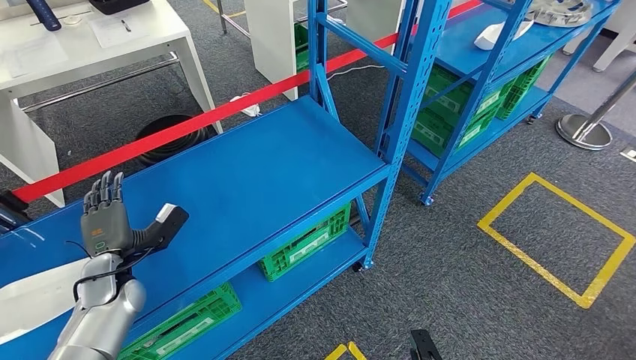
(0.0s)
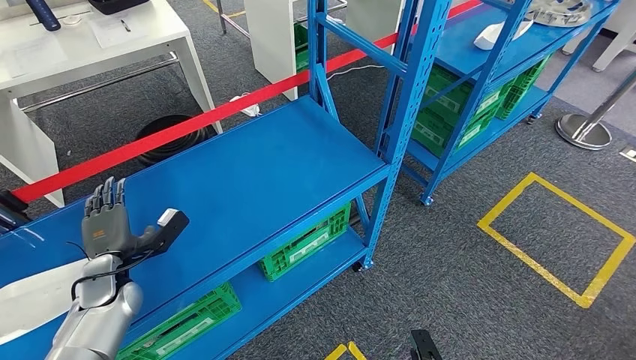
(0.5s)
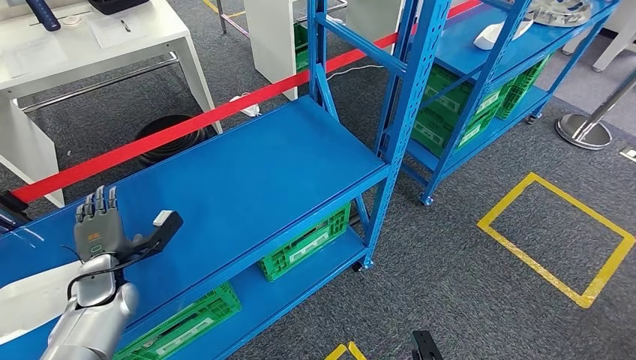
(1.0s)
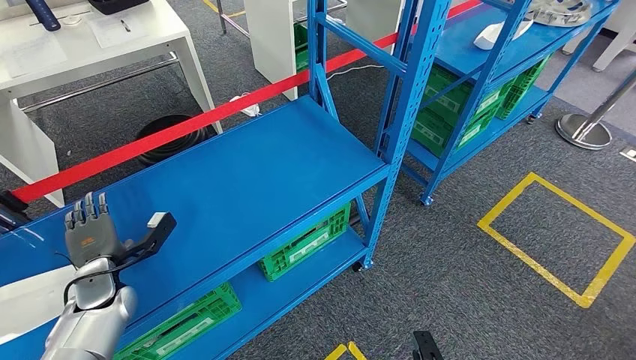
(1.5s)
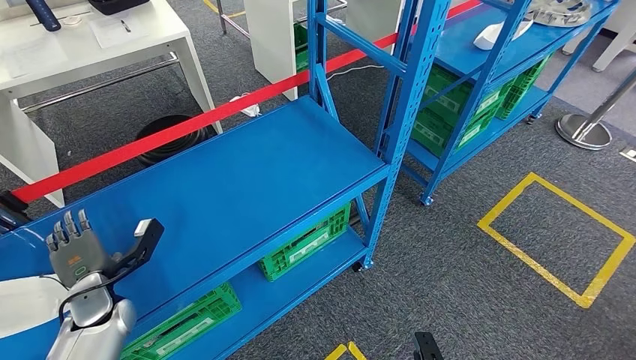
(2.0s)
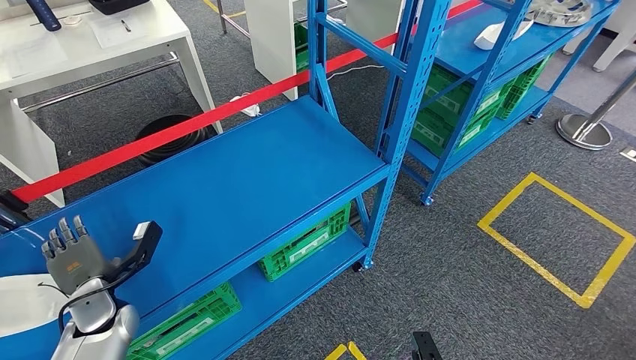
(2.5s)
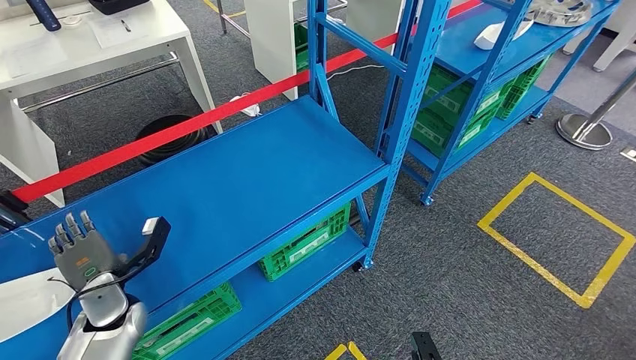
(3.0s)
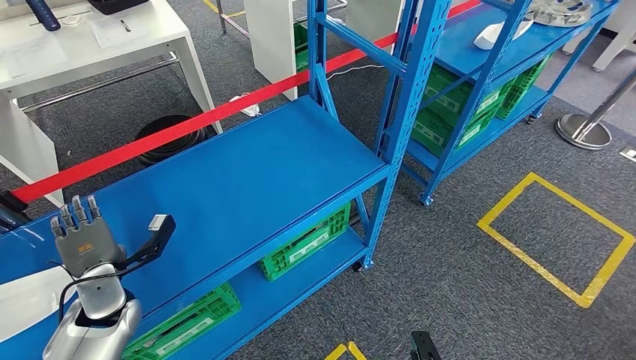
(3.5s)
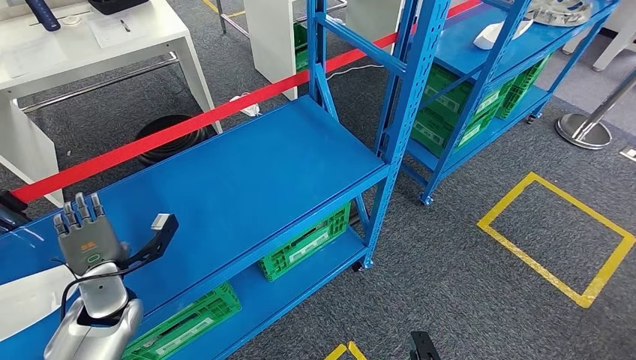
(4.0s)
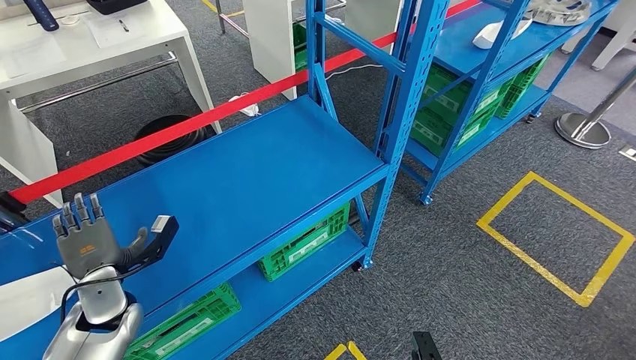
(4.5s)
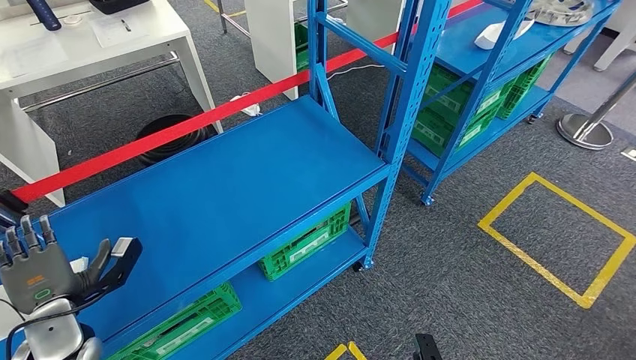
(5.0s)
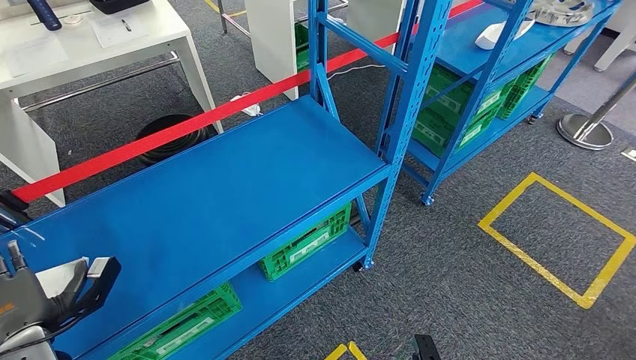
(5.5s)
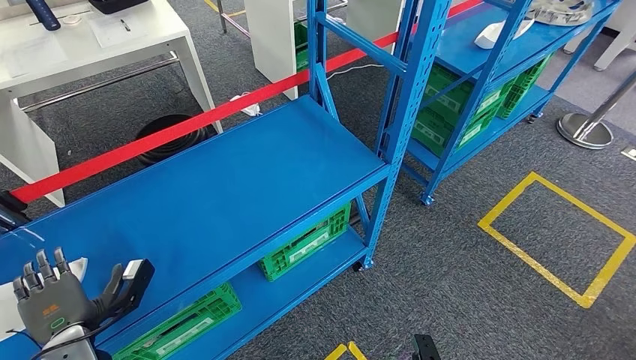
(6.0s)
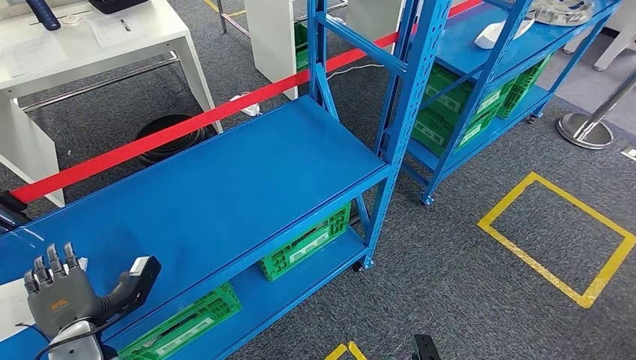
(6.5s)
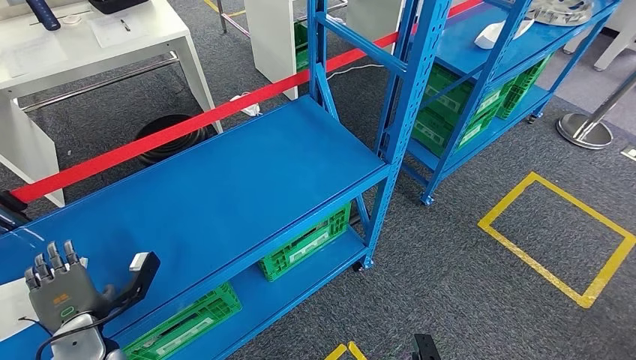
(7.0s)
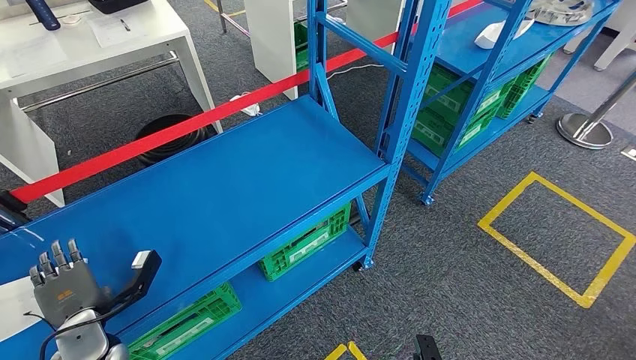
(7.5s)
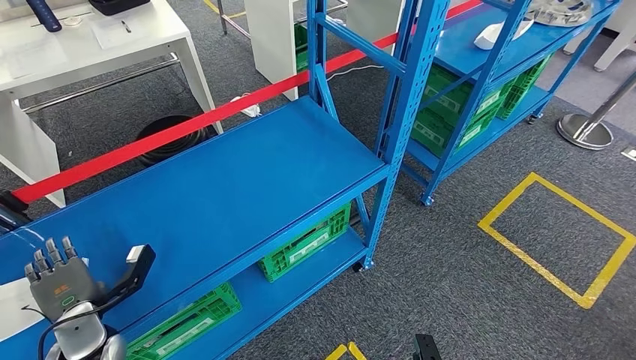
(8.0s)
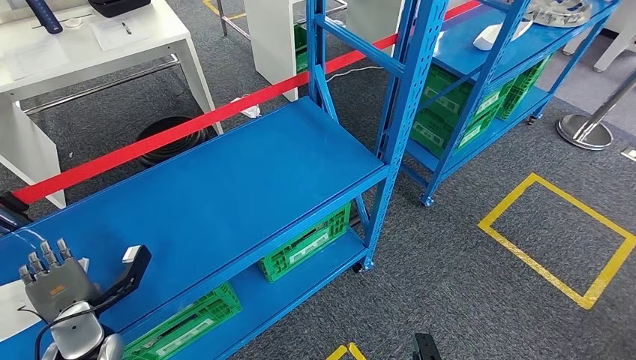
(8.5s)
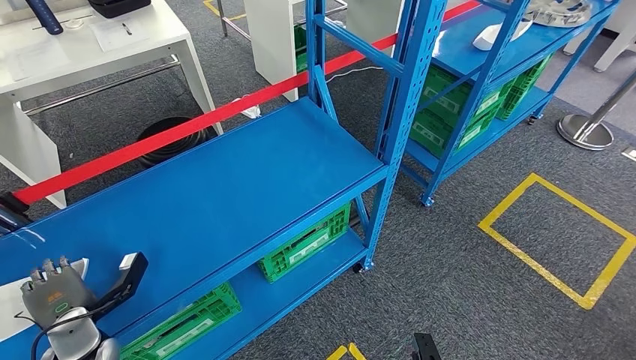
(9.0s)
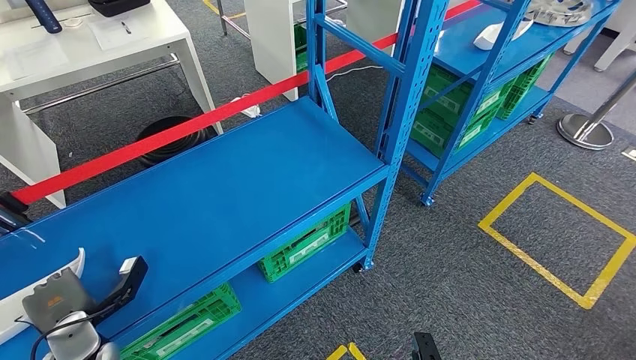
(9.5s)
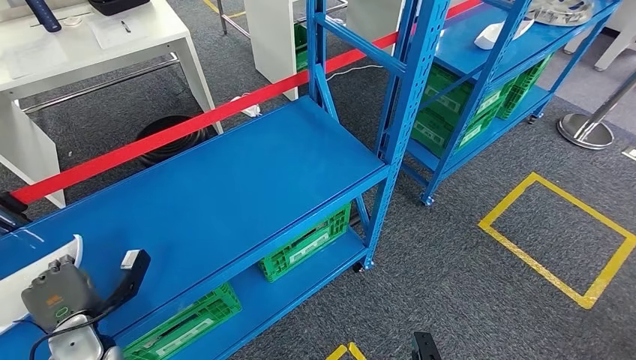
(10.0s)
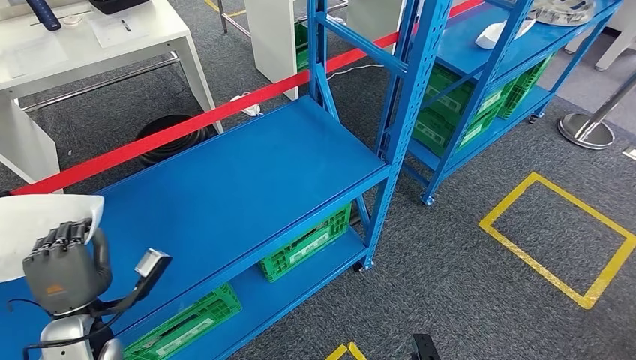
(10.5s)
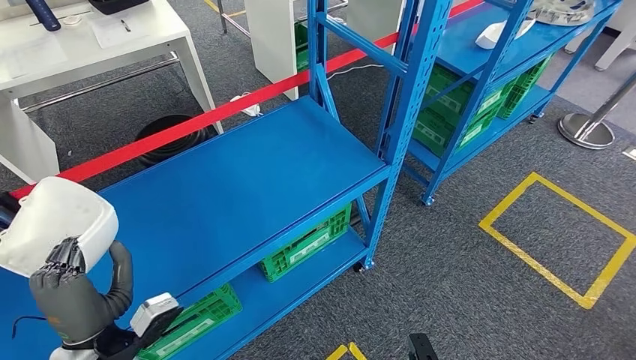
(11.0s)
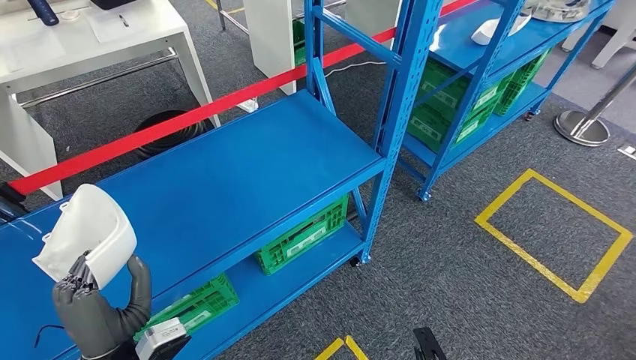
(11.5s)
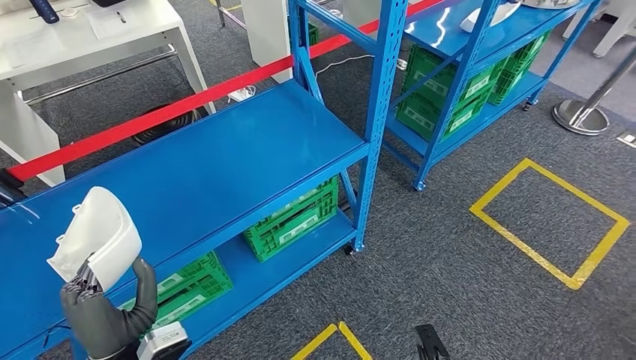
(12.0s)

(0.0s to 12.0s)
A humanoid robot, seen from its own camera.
Step, 0.0s - 11.5s: Pick up the small component from the shelf.
2.0s - 4.0s: The hands stay close to where they were, moving slightly.
4.0s - 6.0s: The left hand moves backward, about 10 cm.
6.0s - 10.0s: The hands make only small movements.

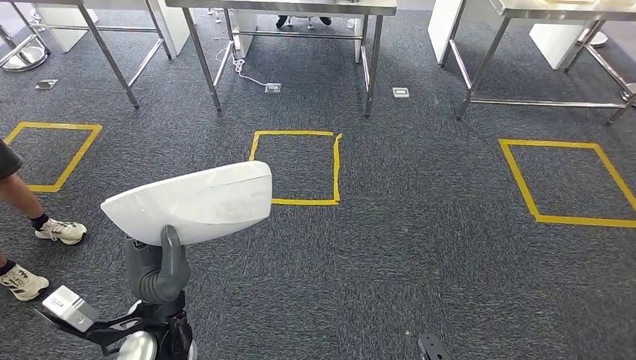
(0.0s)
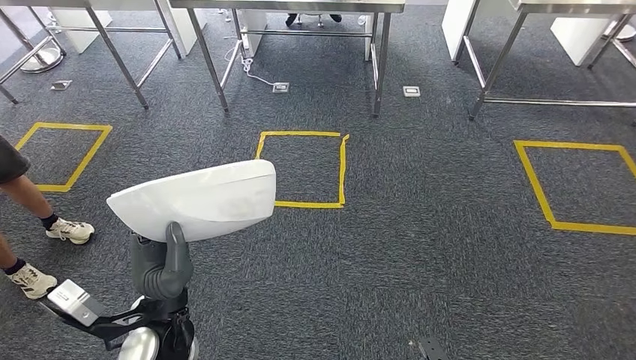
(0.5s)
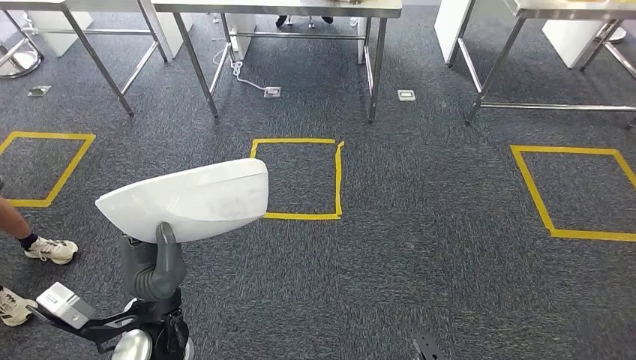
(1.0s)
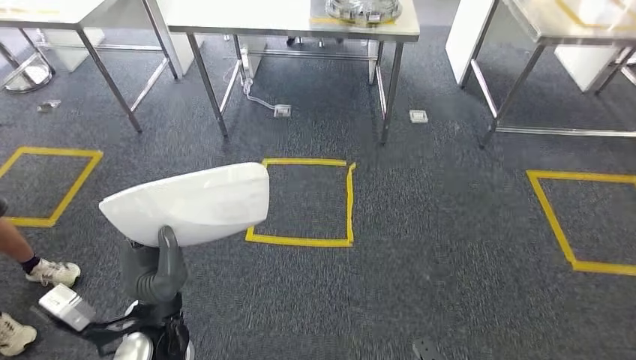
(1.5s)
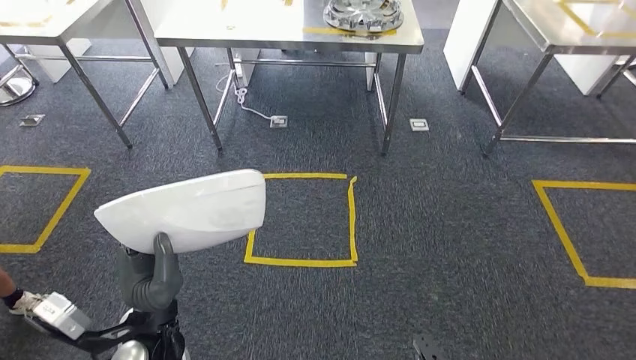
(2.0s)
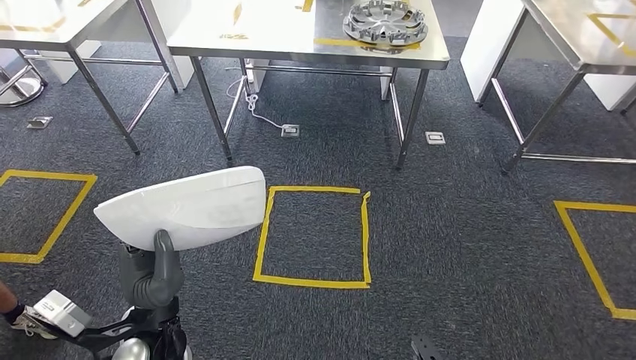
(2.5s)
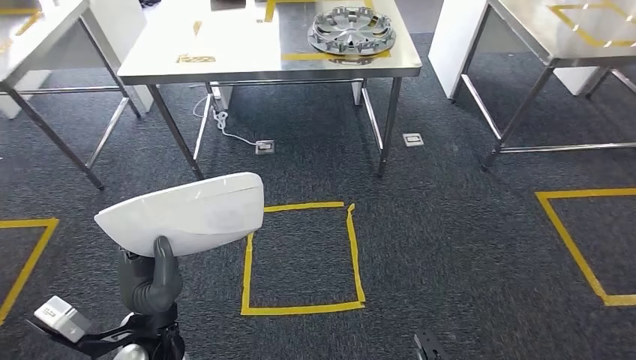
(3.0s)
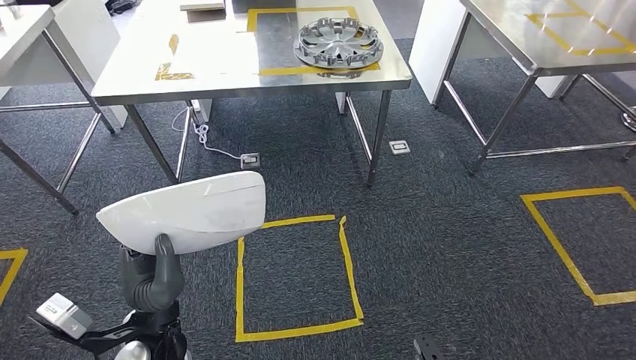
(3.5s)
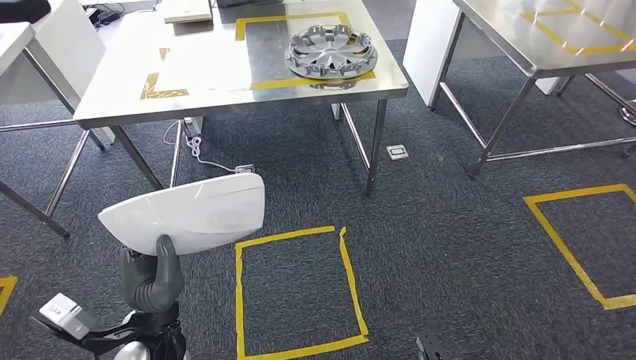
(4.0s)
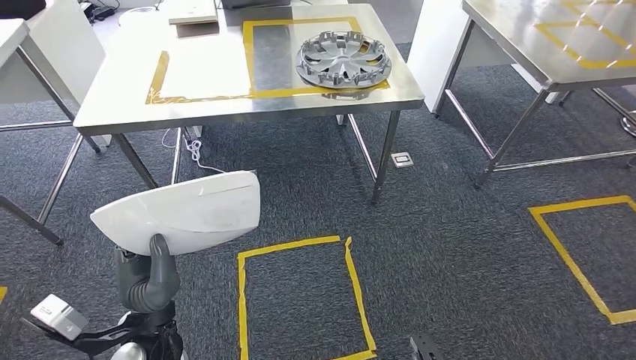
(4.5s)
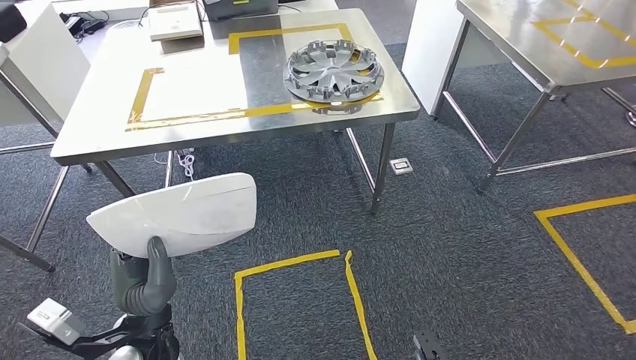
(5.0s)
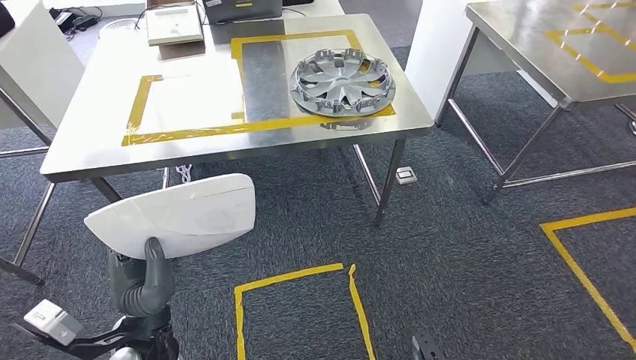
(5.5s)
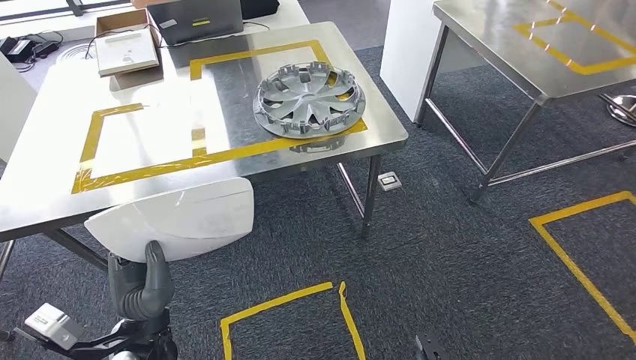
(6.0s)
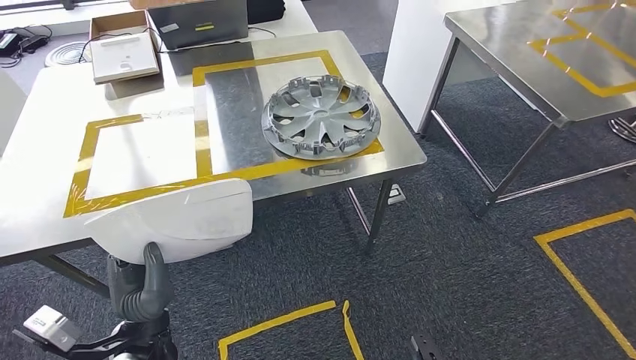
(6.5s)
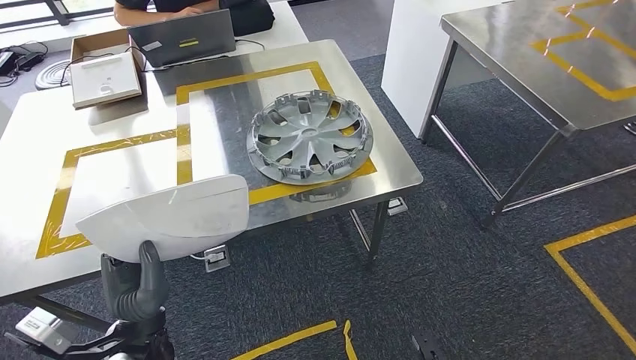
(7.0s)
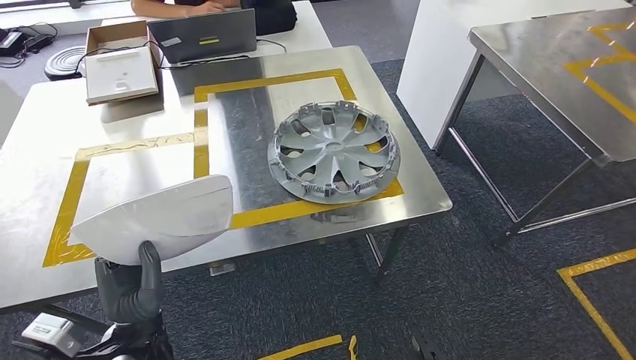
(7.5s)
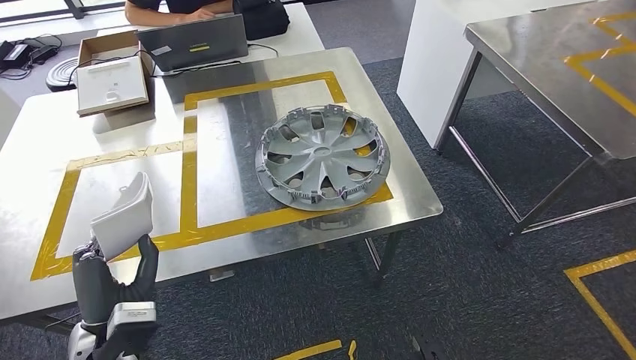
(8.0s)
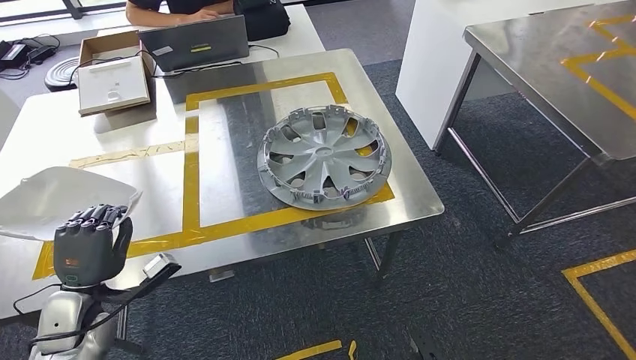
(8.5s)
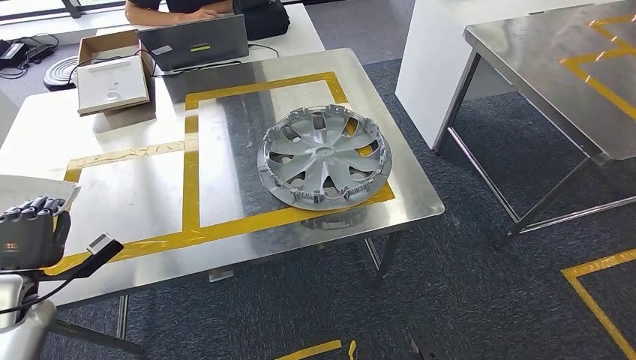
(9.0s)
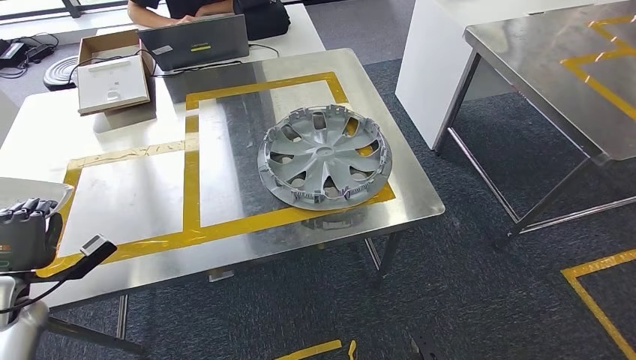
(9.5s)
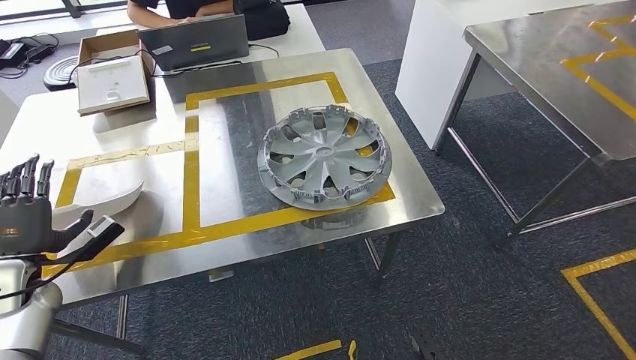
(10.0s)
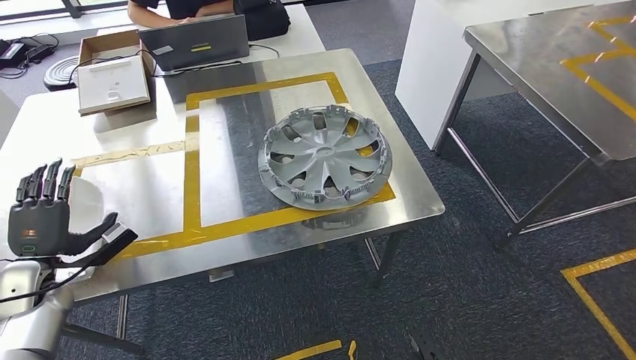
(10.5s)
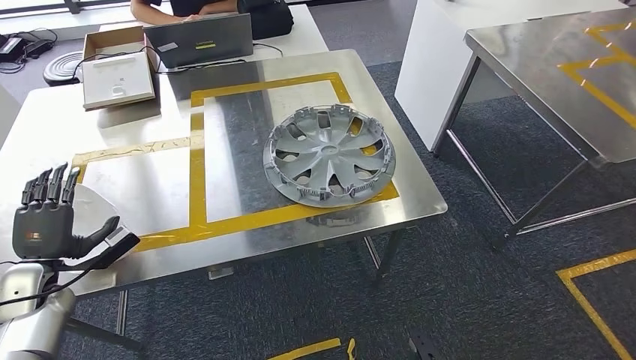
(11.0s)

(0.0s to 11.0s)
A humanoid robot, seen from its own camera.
Step, 0.0s - 6.0s: Move the small component to the workbench.
